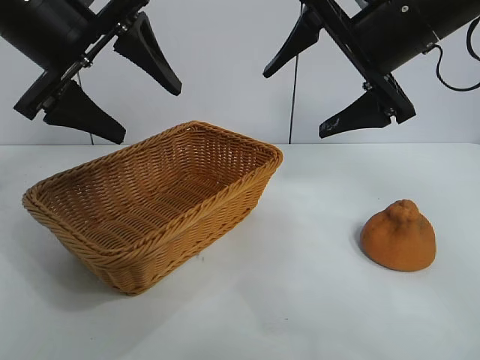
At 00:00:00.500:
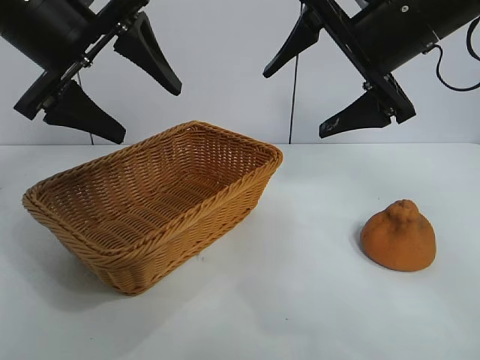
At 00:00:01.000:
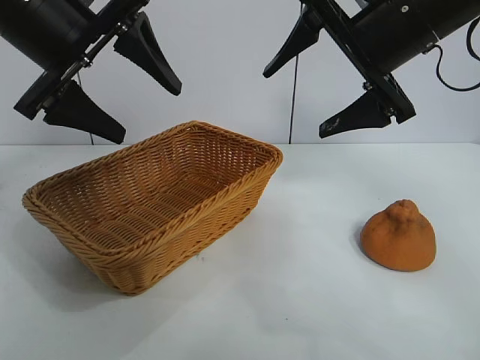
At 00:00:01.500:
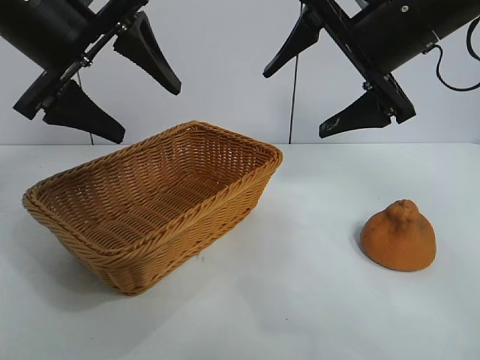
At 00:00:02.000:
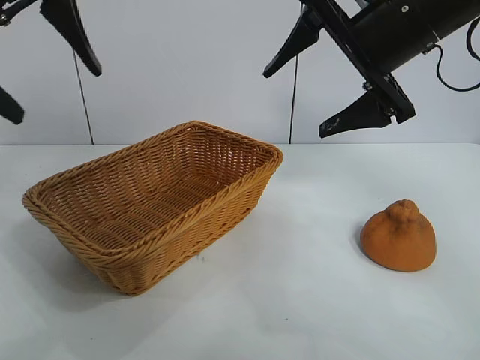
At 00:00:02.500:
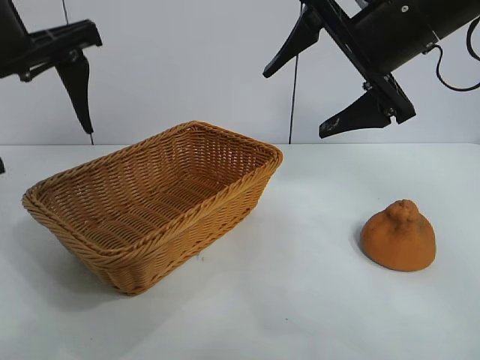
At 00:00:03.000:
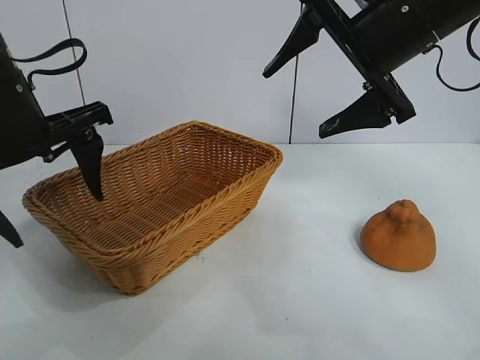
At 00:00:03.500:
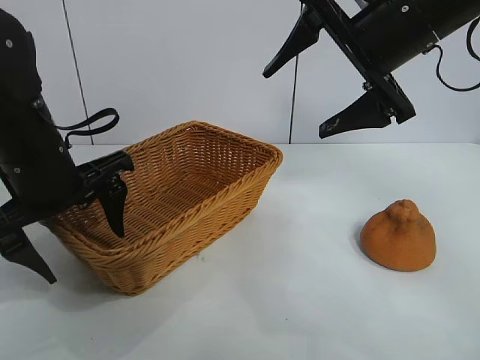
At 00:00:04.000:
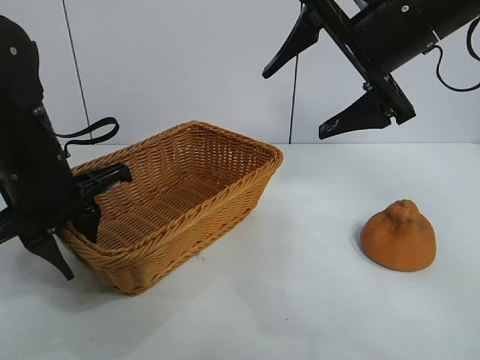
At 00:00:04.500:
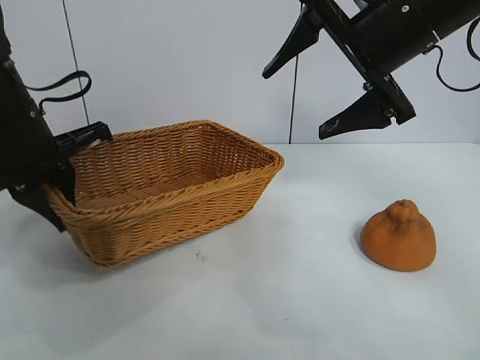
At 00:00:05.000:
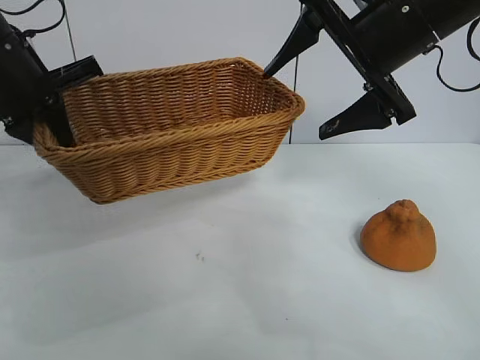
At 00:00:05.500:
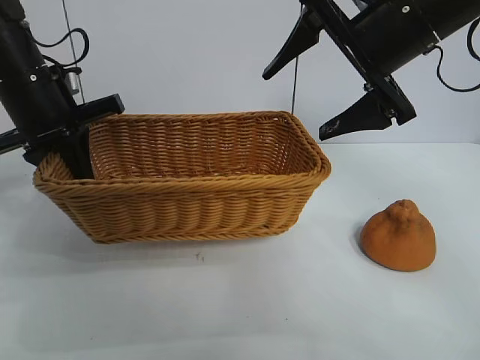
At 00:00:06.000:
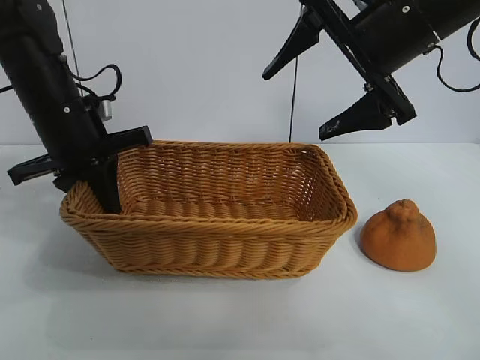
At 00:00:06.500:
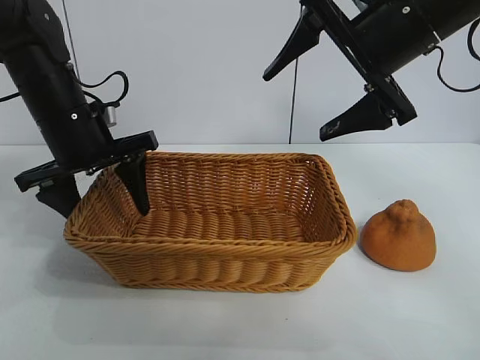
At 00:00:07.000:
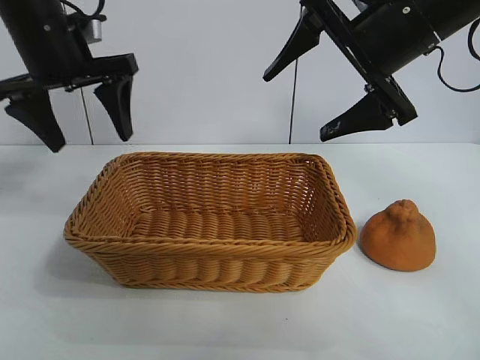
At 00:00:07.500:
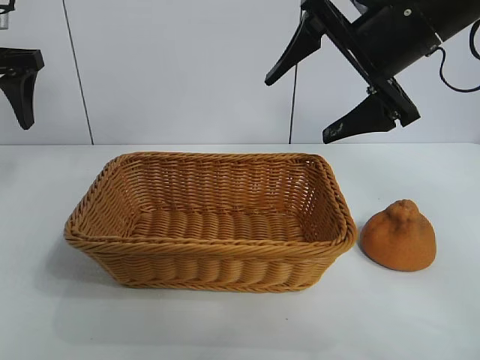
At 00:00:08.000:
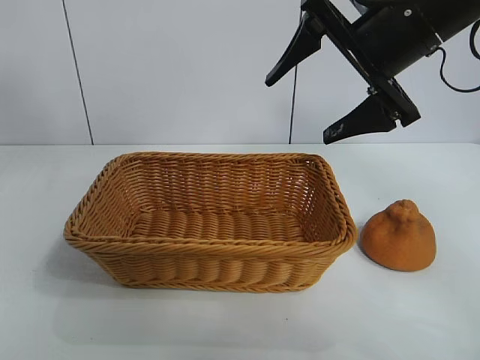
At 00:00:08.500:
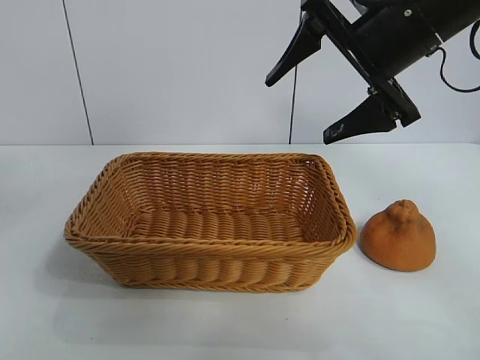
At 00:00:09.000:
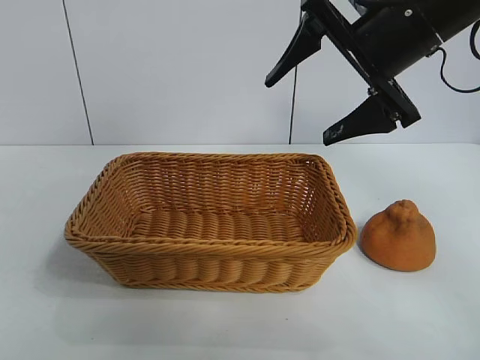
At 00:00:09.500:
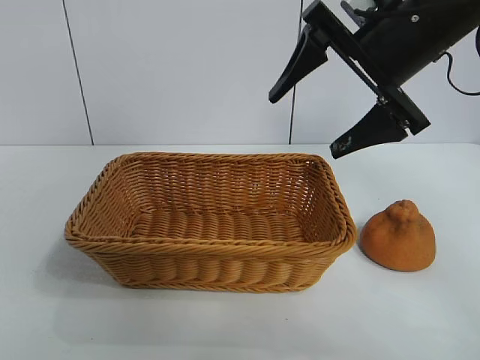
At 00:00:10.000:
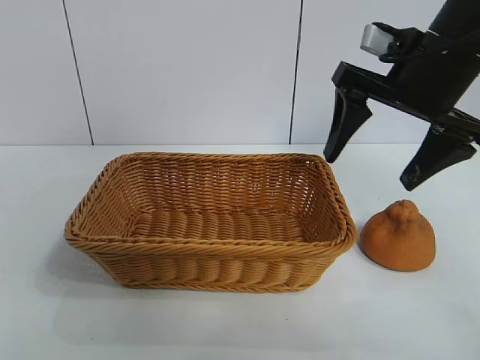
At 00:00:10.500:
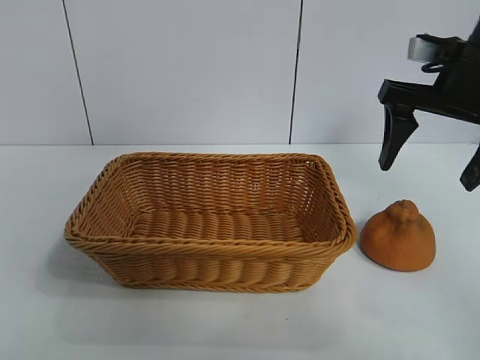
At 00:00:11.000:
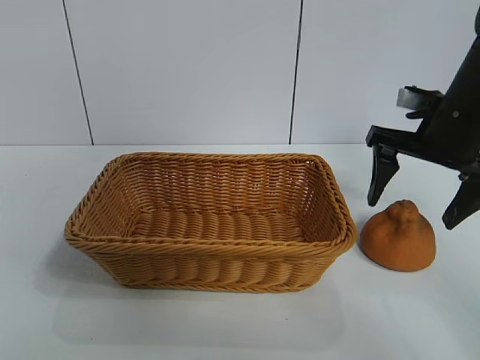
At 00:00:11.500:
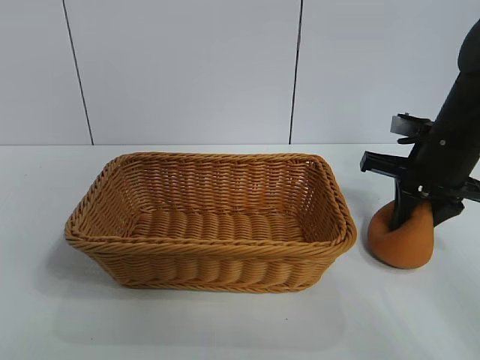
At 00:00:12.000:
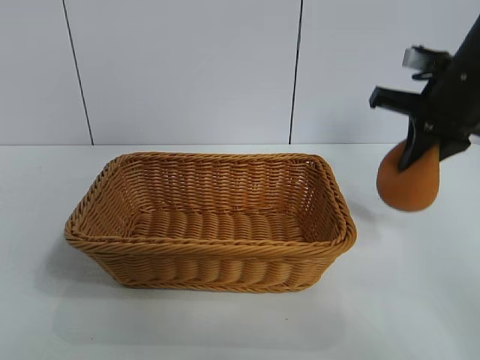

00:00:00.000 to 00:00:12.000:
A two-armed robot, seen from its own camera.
Task of the whole recording: pick up the orange and put it into the basket.
Step, 00:00:02.000 to 00:00:04.000: Grasp the basket with left gripper.
Step, 00:00:04.500 to 00:00:06.500: Place the basket in the center of view with left gripper.
Step, 00:00:07.000 to 00:00:11.500: Grasp the orange with right gripper.

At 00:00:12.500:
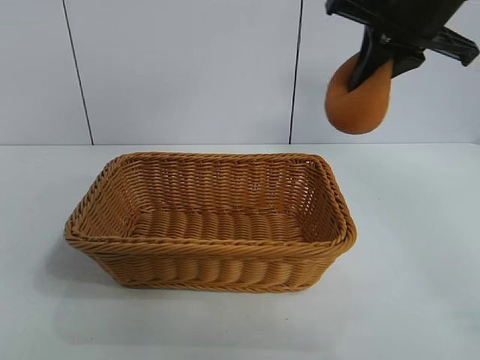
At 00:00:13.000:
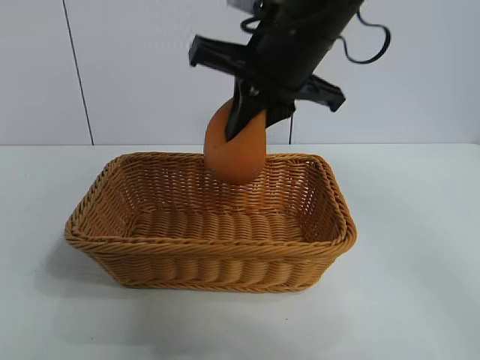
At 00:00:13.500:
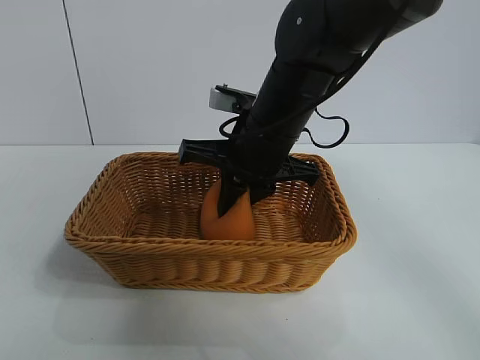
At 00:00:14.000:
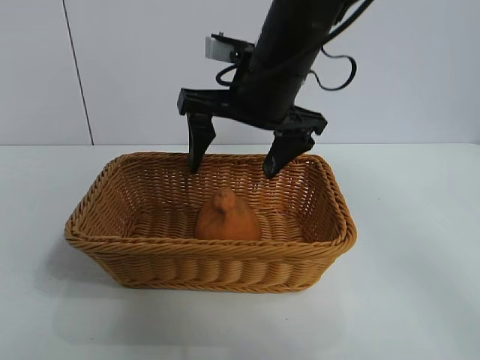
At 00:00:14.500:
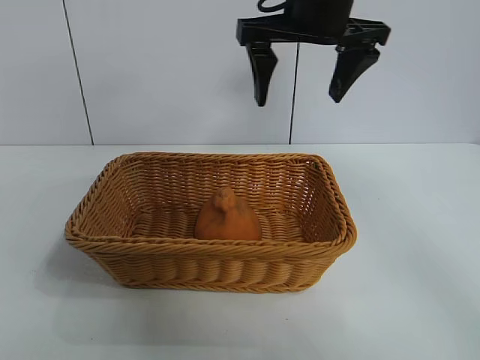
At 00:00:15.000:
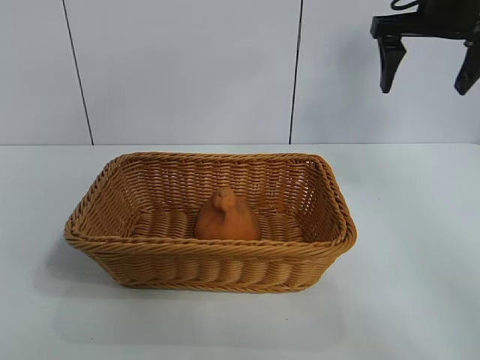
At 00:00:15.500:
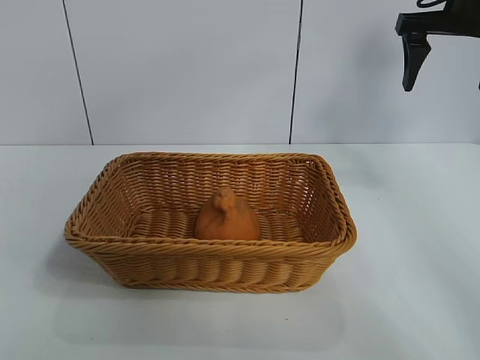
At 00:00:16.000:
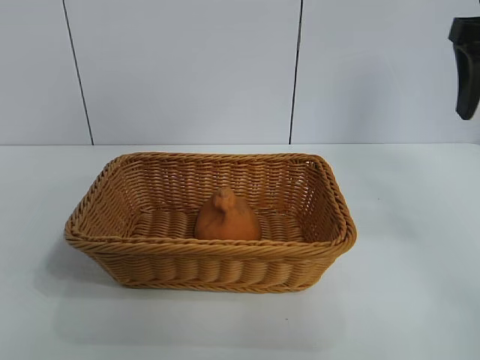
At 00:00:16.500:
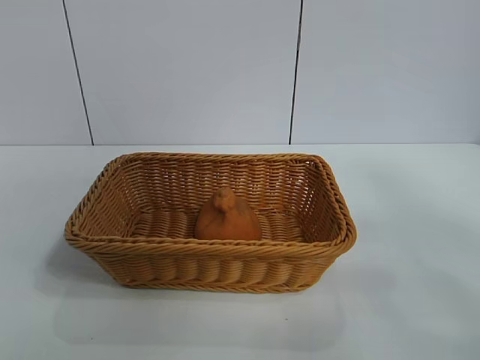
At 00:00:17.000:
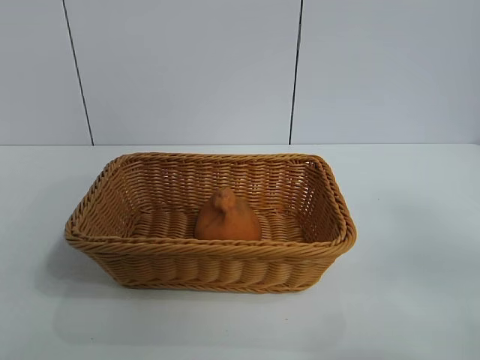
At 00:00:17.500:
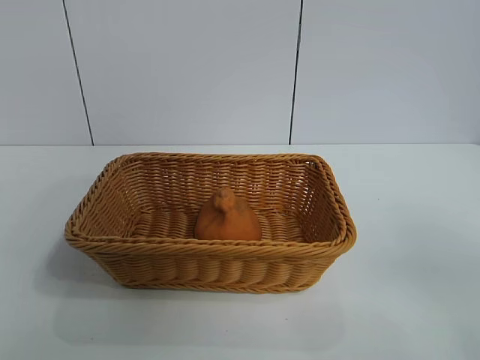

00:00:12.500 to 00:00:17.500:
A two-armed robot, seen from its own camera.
Task of the whole recording: pick up the orange and put it into the basket.
Step, 00:00:12.500 to 00:00:13.500: Place the orange in the basket with right gripper.
